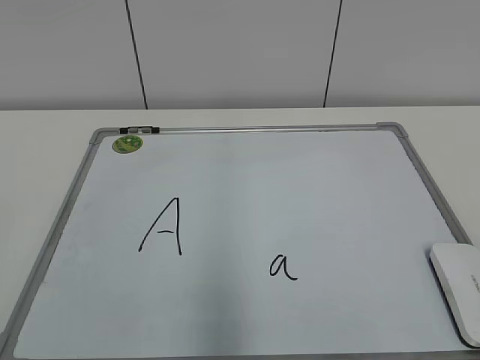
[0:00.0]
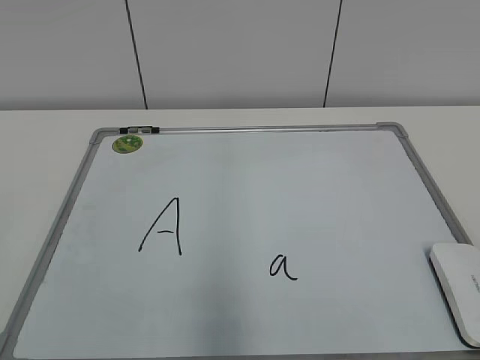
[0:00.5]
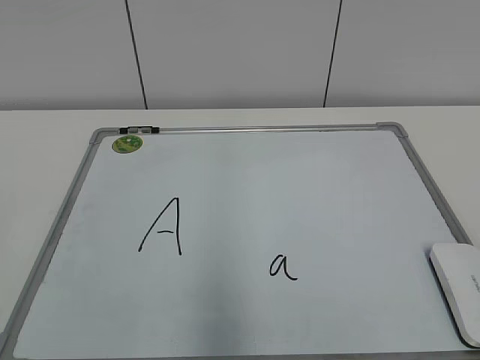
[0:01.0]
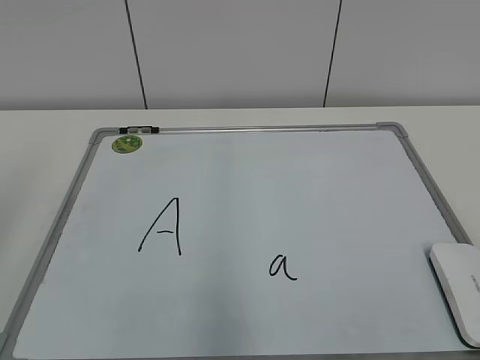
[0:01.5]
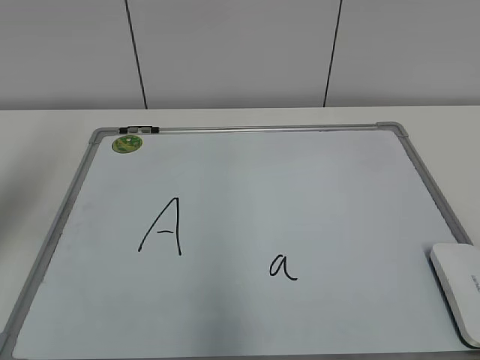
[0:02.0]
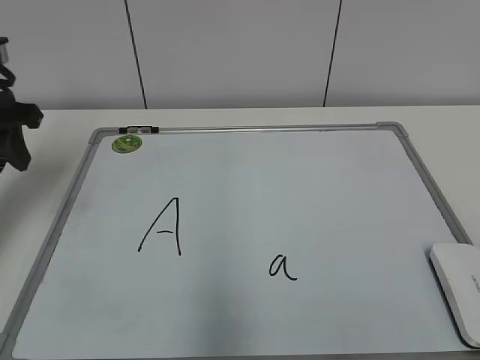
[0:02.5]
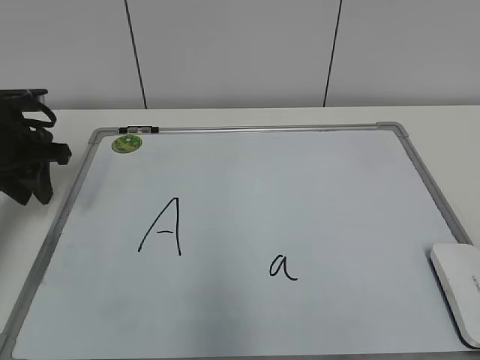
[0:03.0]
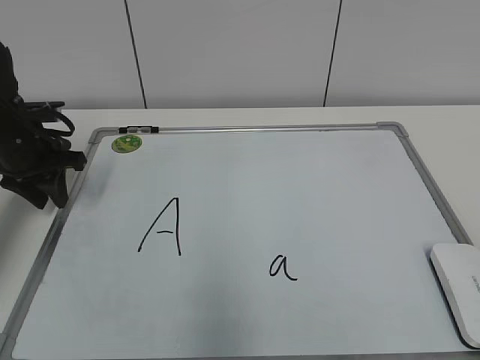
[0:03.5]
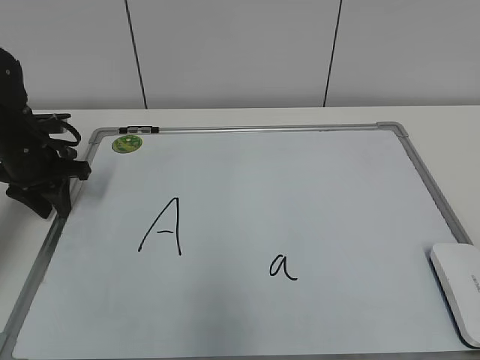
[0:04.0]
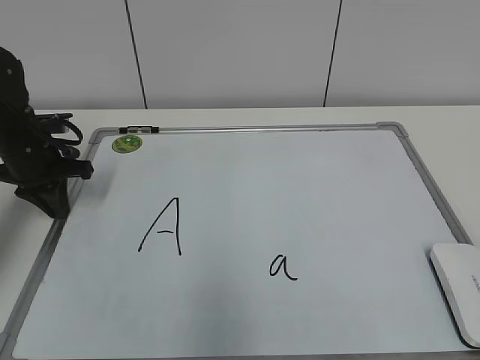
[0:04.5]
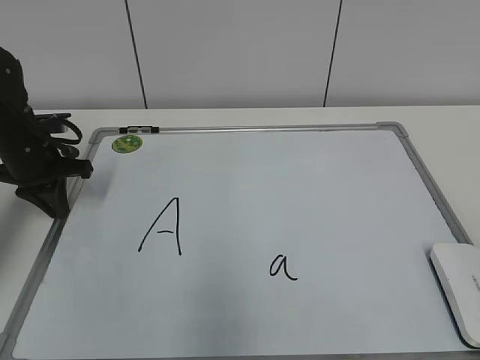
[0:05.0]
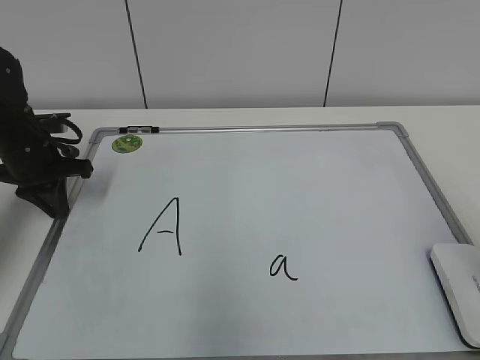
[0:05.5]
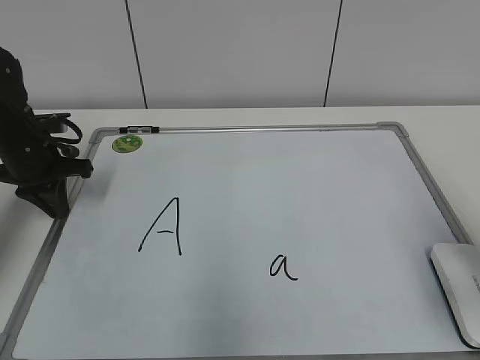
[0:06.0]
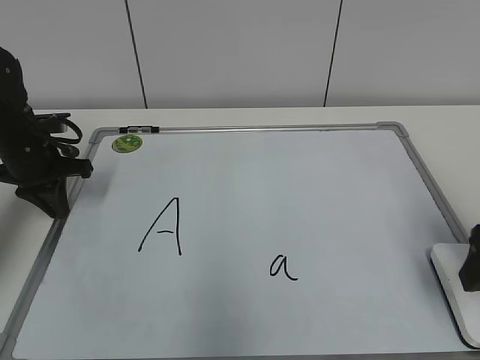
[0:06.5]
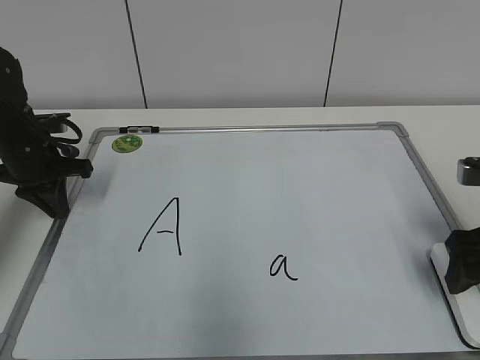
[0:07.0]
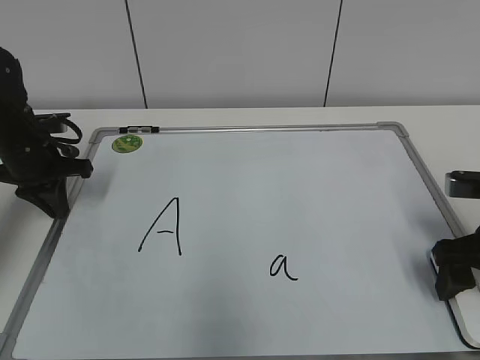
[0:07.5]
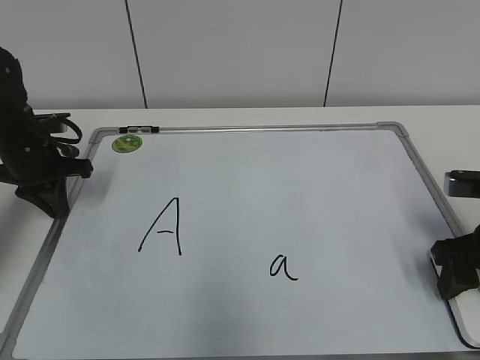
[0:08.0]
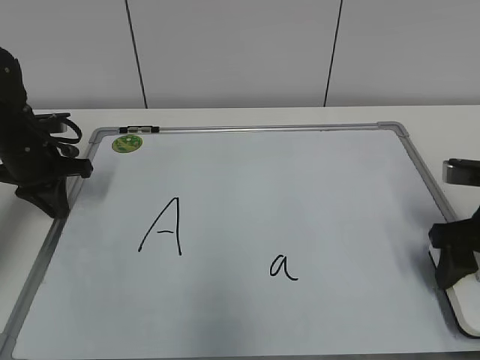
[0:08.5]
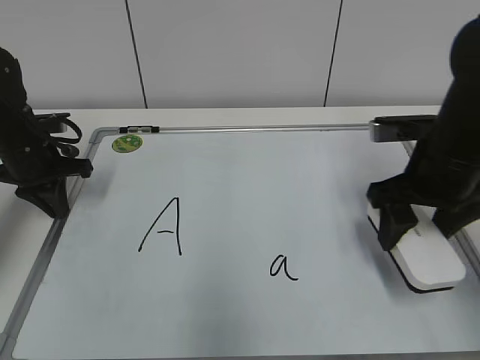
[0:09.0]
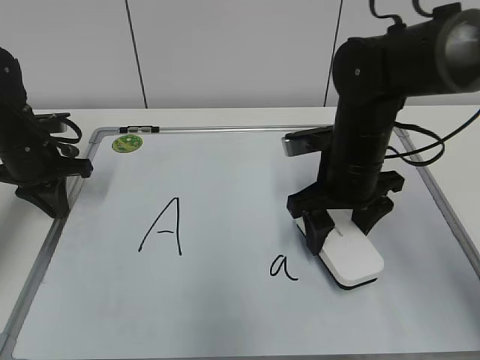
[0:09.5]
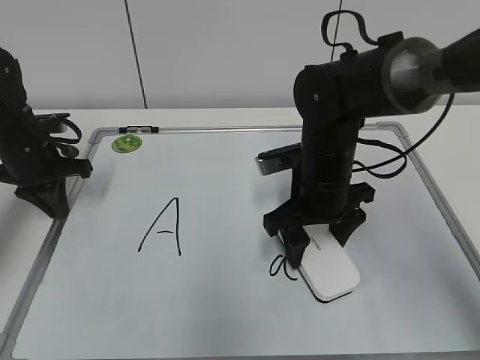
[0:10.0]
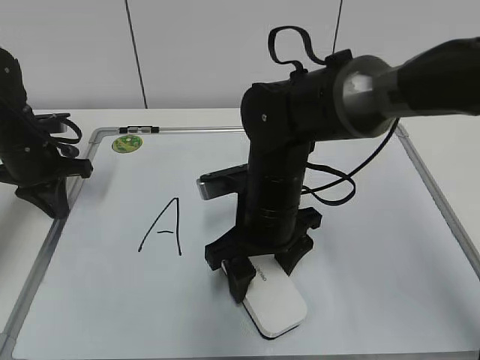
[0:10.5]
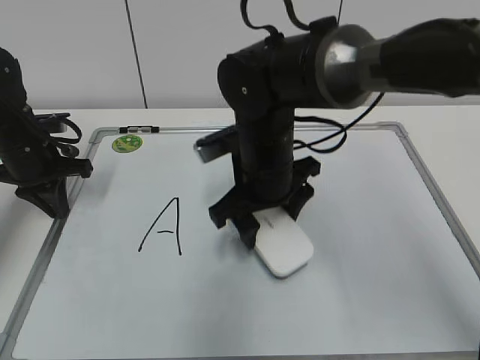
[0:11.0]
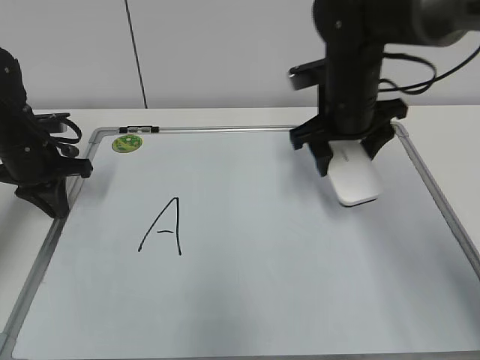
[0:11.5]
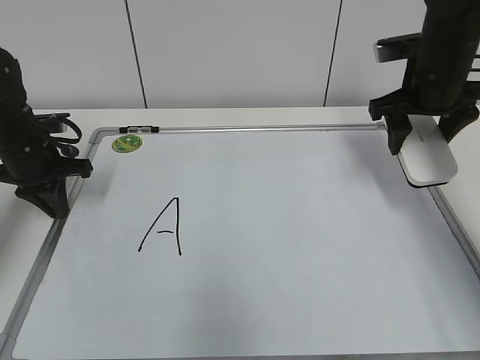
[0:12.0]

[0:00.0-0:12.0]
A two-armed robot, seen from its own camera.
Task of the whole recording: pick up the eraser on the blackboard and erase the letter "a".
Step, 0:00.0 to 0:04.5: Hold the drawing board steady with your left hand.
Step, 0:05.0 to 0:08.0: Grab the eraser with your right hand.
Step, 0:08.5 to 0:10.5: Erase the letter a with your right hand.
0:02.0 to 0:04.0: The left gripper is displaced downward and forward by some 25 cm.
0:04.0 to 0:06.0: The right gripper heads forward, covering approximately 20 cm, and opens up. The left gripper closes its fingers.
0:06.0 to 0:08.0: The right gripper shifts about 15 cm downward and forward, and closes.
0:08.0 to 0:10.0: The right gripper moves to the left and forward, approximately 20 cm.
0:10.0 to 0:12.0: The right gripper moves to the right, upward and forward, approximately 20 cm.

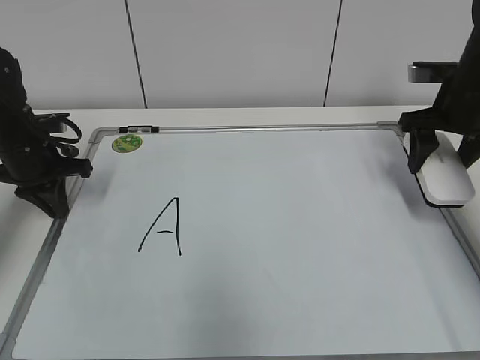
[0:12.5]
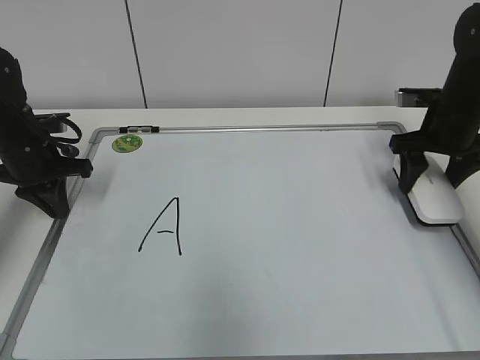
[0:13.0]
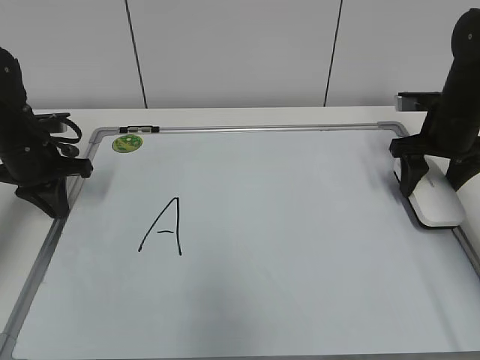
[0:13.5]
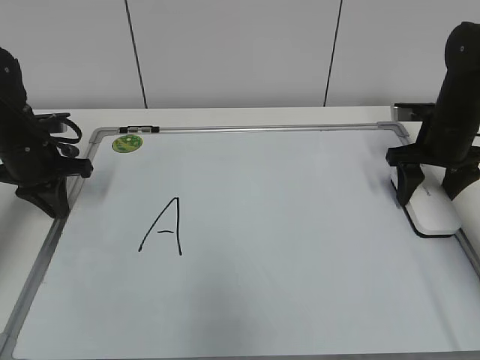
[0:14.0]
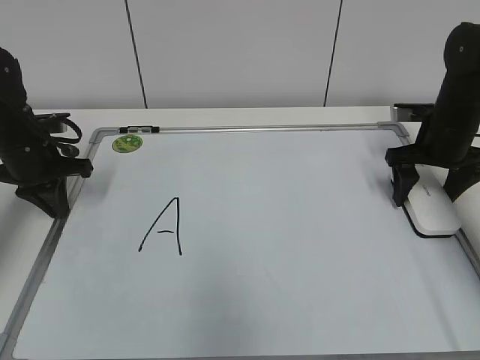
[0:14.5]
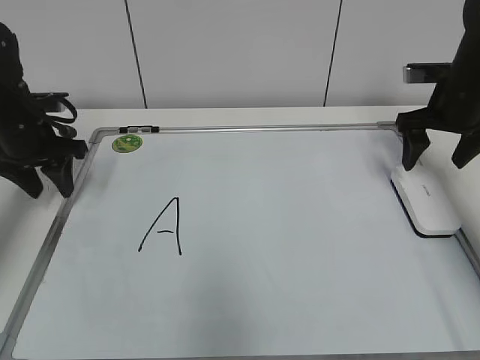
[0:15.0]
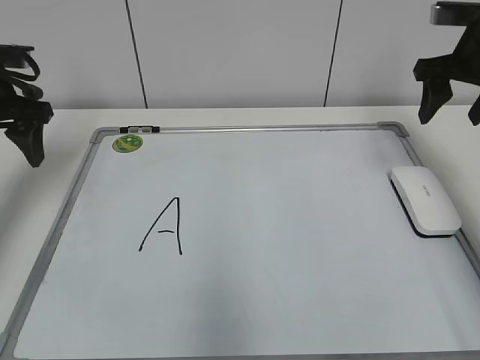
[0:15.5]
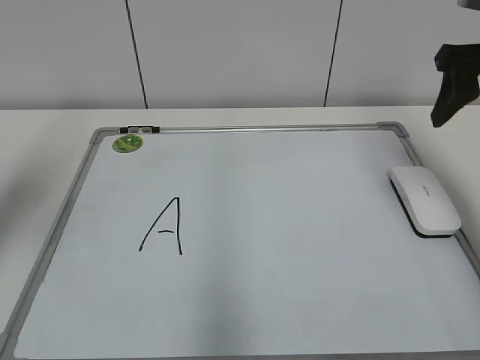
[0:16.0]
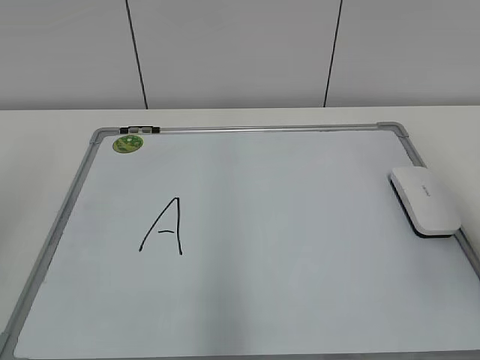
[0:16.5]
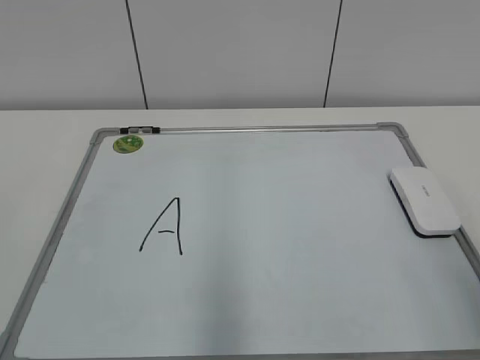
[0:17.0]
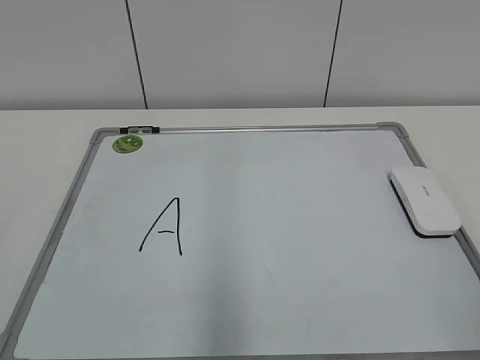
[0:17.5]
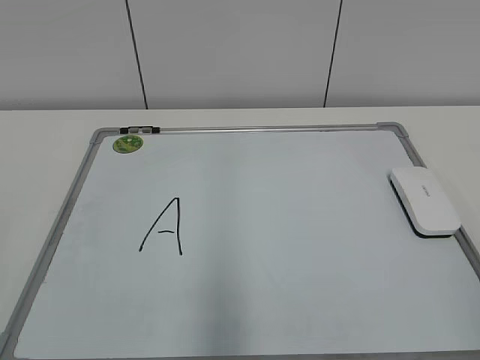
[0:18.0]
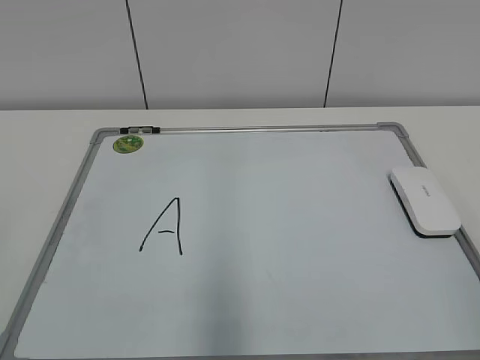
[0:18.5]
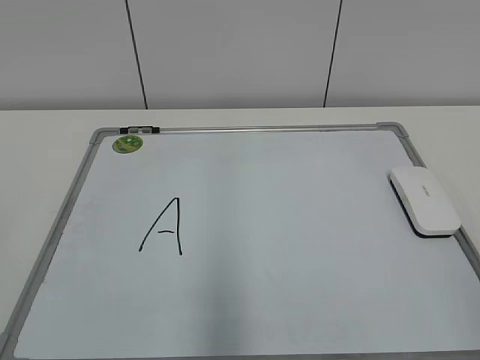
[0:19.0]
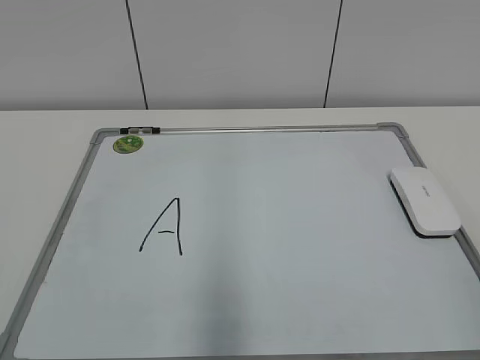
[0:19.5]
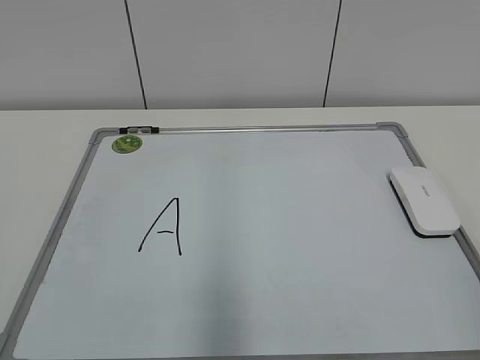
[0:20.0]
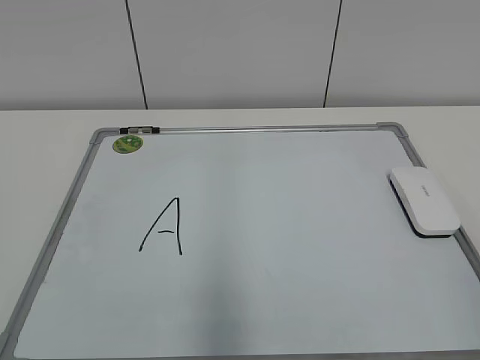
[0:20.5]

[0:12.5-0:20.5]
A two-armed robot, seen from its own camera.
Task of the whole recording: pick up the eraser on the blackboard and erase the letter "a".
0:12.5 to 0:14.5: The right gripper heads downward, covering about 5 cm, and opens up.
0:14.5 to 0:16.5: The grippers both shift backward and upward by roughly 35 cm. The left gripper opens up. Meanwhile the right gripper closes up.
0:16.5 to 0:18.5: The right gripper is displaced backward by about 20 cm.

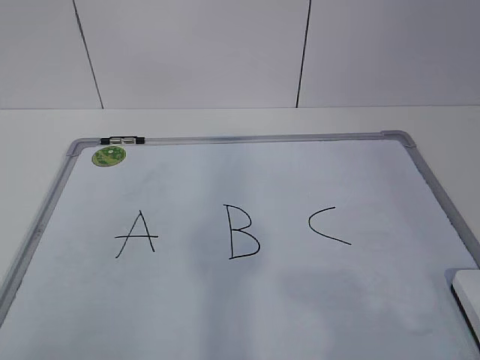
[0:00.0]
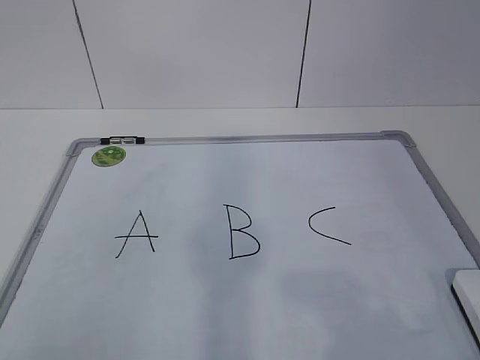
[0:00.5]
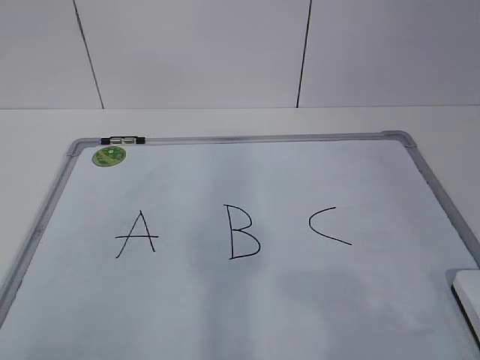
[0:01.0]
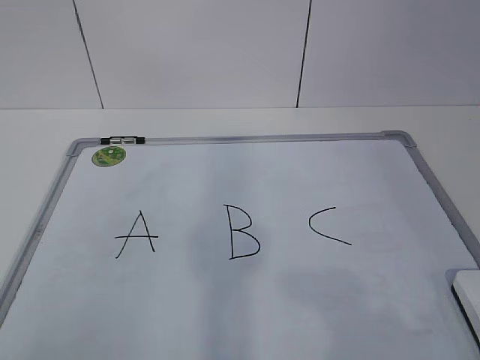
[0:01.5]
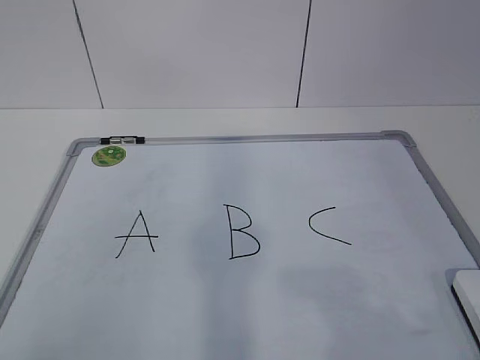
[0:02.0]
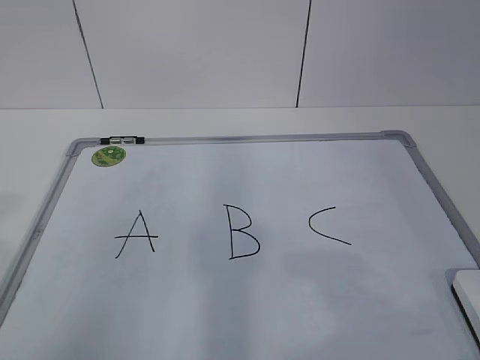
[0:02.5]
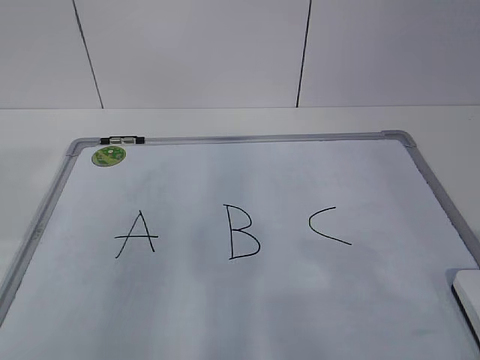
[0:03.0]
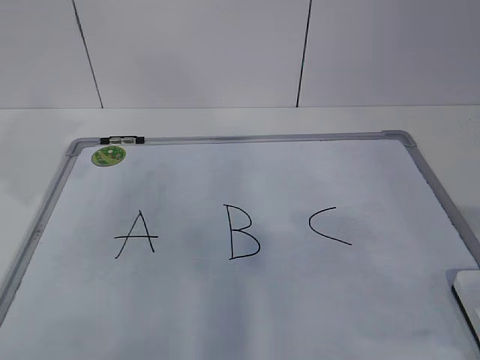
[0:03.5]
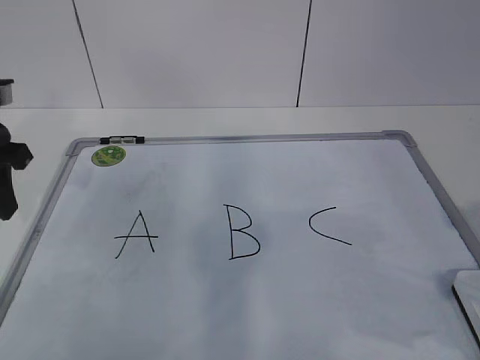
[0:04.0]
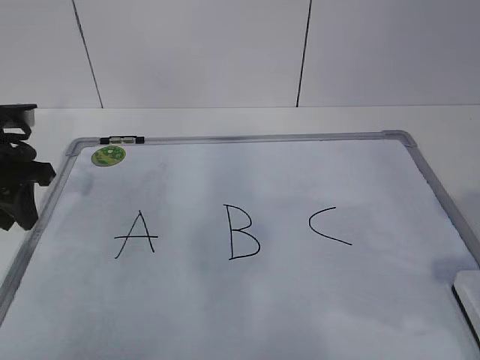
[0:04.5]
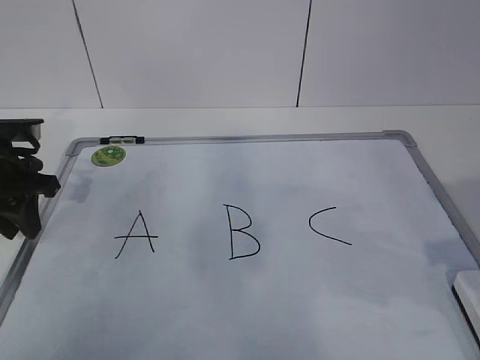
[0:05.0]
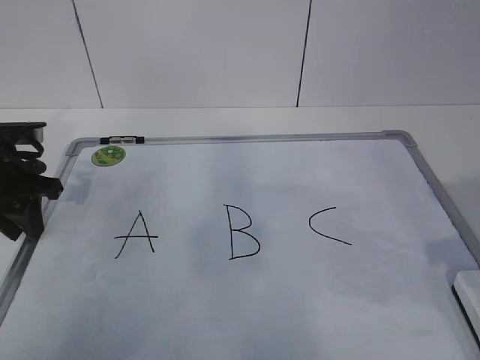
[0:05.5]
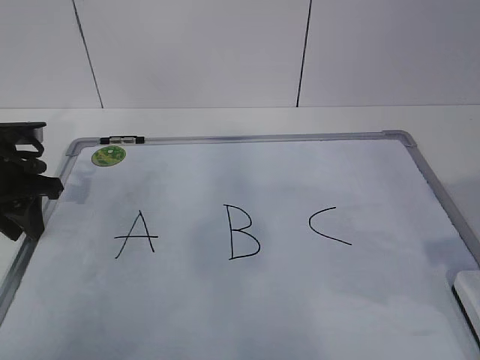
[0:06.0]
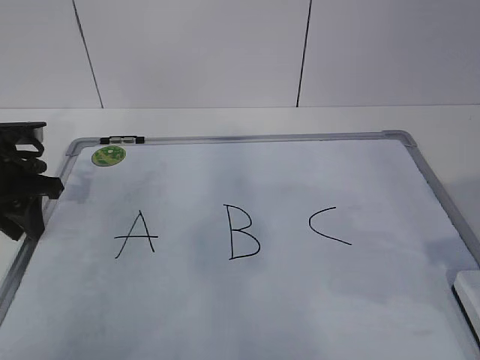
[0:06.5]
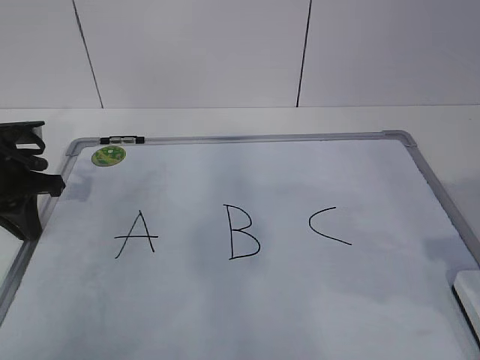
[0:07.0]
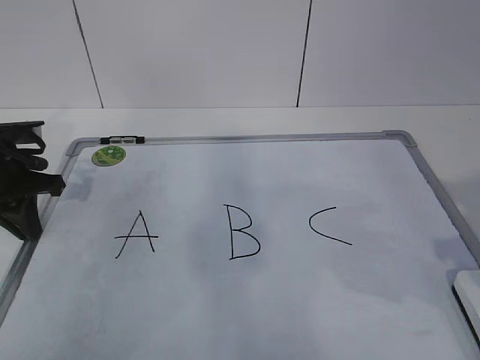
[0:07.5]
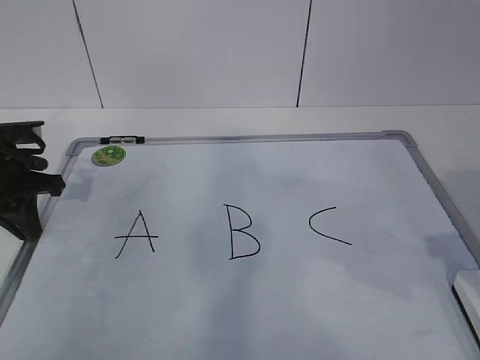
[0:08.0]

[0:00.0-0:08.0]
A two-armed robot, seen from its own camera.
Task of the whole recording: pick up the eraser on the blackboard and erase the letter "B".
Step, 0:00.0 to 0:05.5: Hold the drawing board steady with your left hand.
0:02.0 to 0:04.0: The left gripper heads forward, covering about 30 cm. The right gripper goes roughly 10 cm forward.
0:04.0 to 0:06.0: The left gripper shifts approximately 10 cm downward.
0:06.0 to 0:08.0: The left gripper closes.
